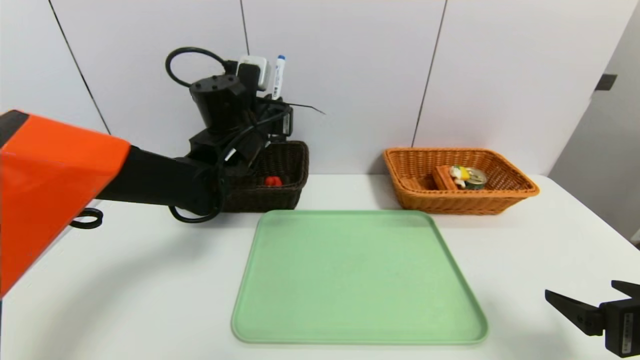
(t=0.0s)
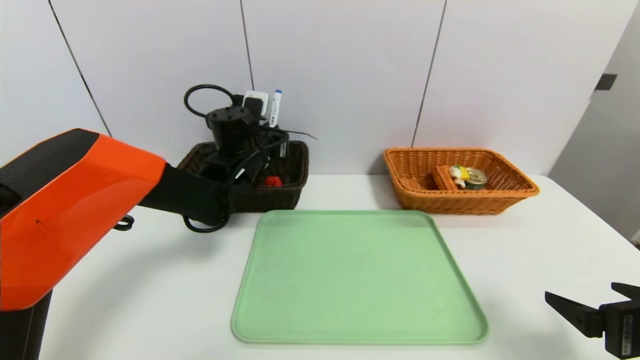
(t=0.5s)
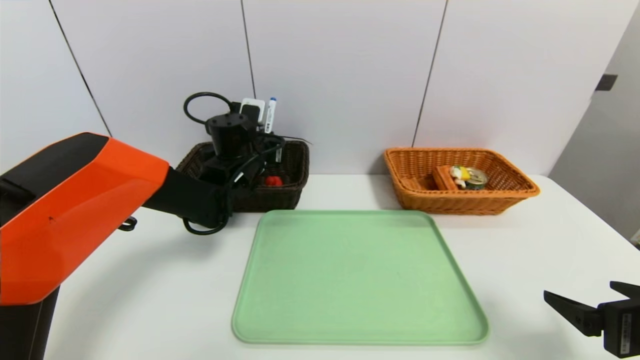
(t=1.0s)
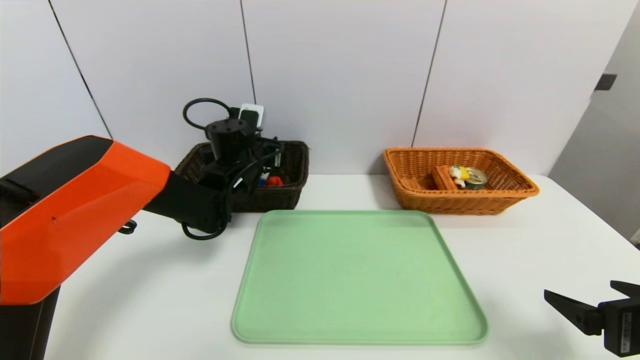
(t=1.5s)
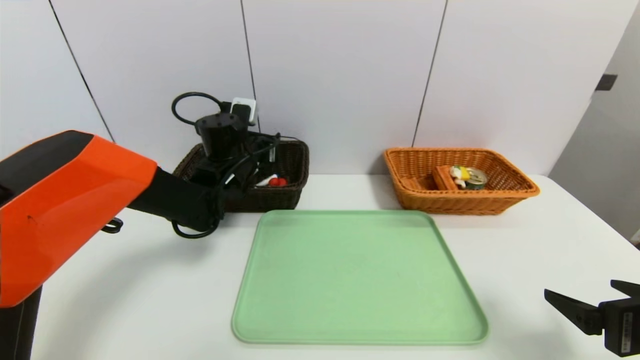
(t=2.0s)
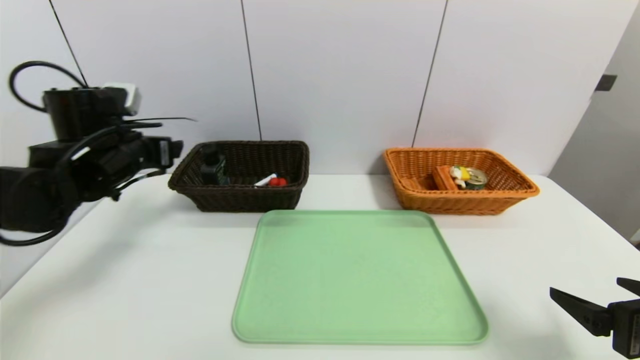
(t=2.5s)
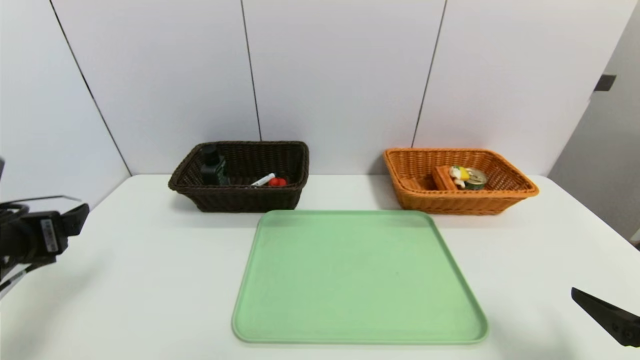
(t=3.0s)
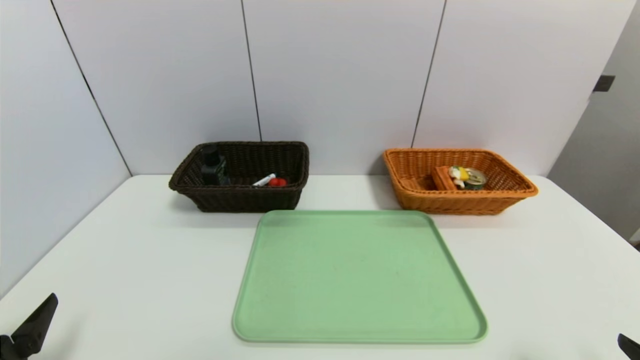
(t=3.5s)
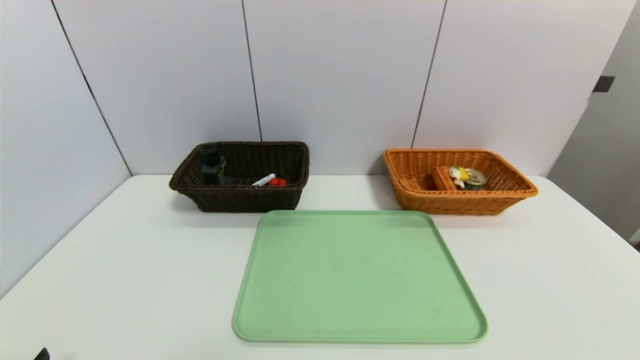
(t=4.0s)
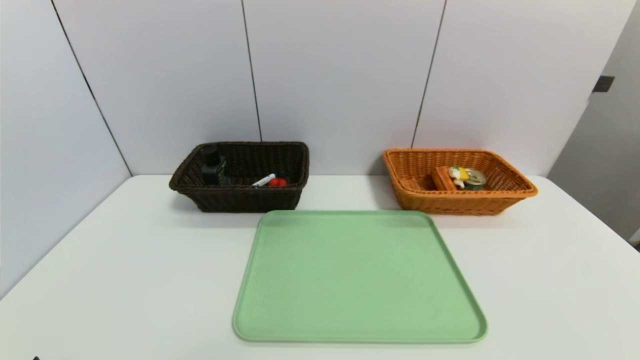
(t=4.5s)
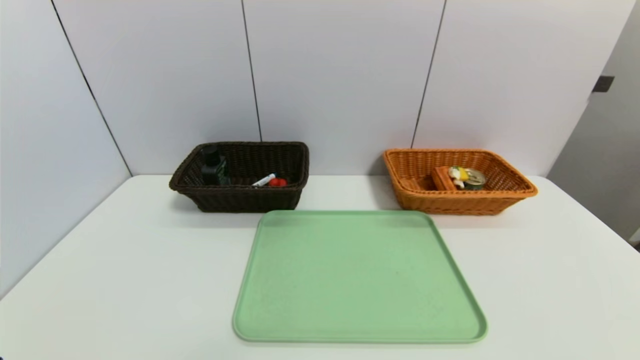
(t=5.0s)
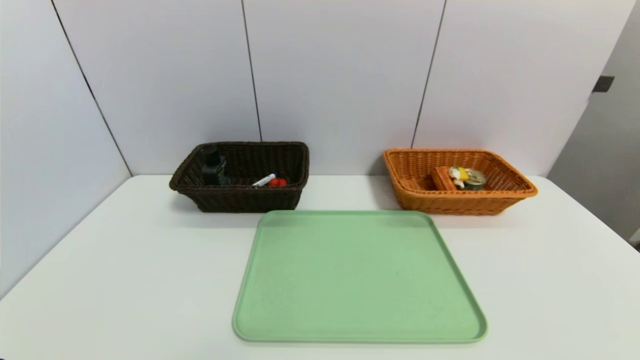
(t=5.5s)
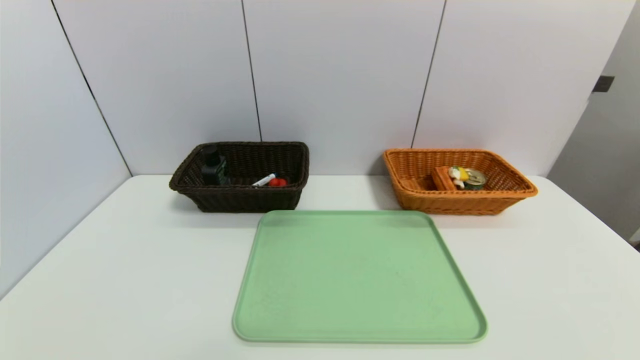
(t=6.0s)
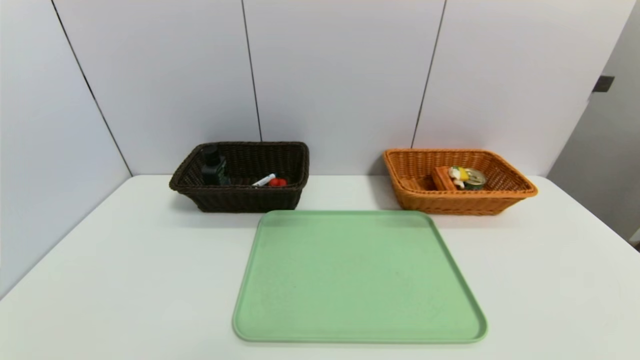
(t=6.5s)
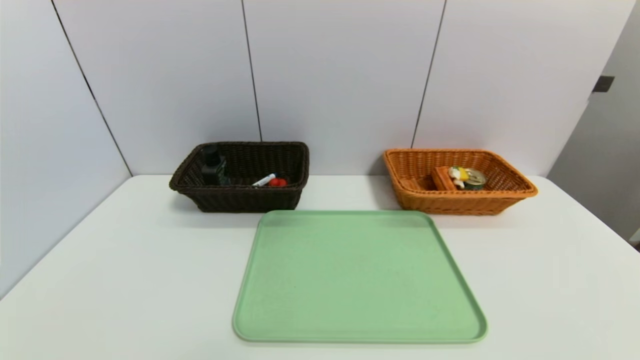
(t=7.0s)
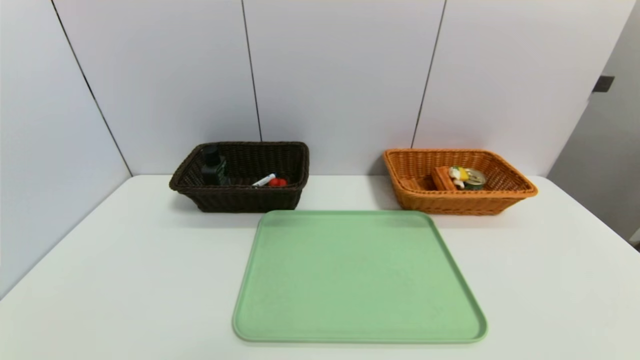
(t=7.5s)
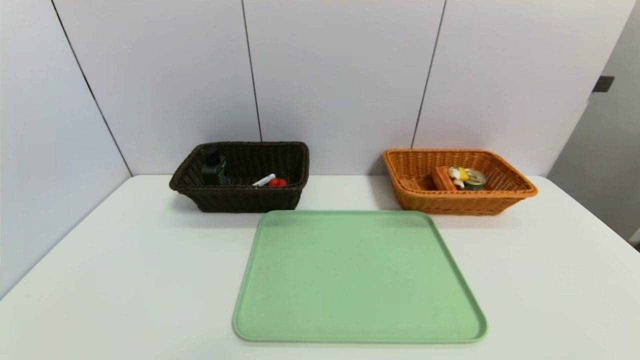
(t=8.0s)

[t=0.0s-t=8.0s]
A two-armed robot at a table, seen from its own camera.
Task of the whole recording: place the food in the right basket with the right gripper, and place the non food items in the left basket with the left gripper.
Step, t=0.0s to t=2.0s: Grasp the blue marker and put it in the left basket.
t=0.0s to t=2.0s: The left gripper shifts by about 5 cm, and opens.
t=2.0s to t=4.0s: The left gripper travels backward and to the left by approximately 40 cm, while the right gripper heads backward, covering about 15 cm.
